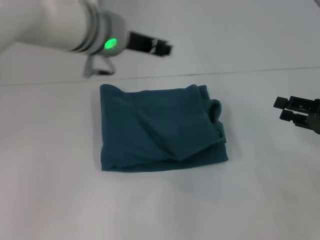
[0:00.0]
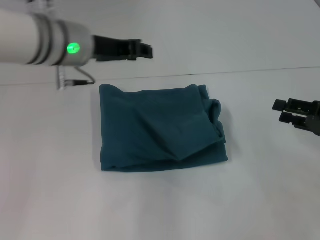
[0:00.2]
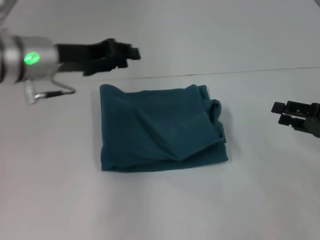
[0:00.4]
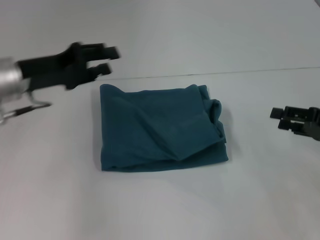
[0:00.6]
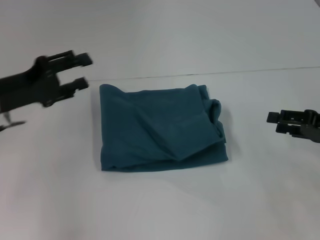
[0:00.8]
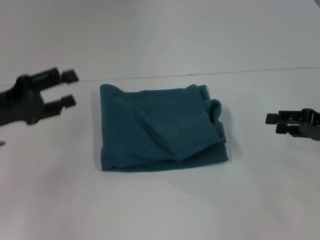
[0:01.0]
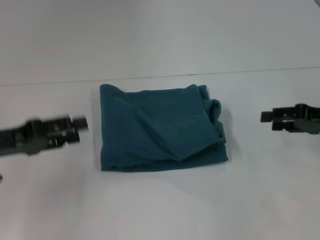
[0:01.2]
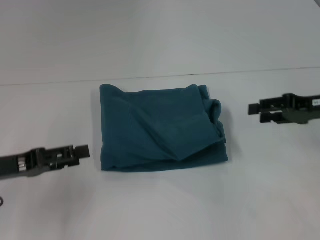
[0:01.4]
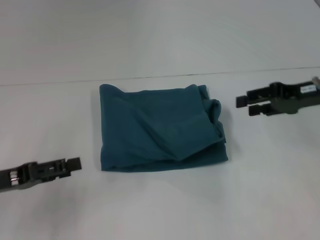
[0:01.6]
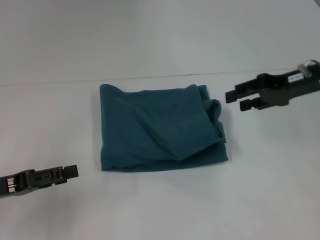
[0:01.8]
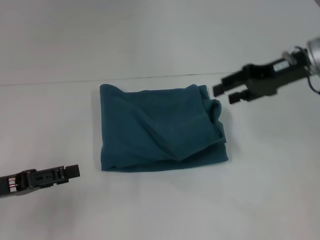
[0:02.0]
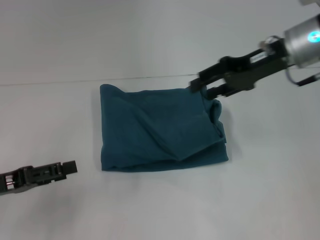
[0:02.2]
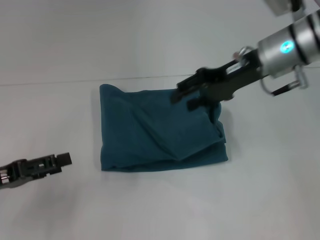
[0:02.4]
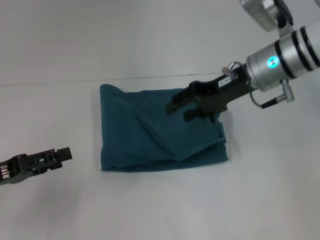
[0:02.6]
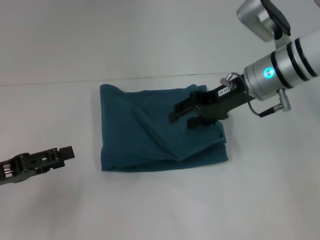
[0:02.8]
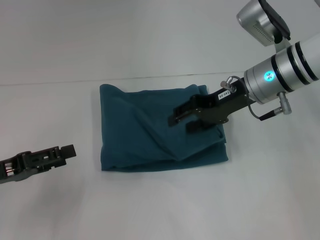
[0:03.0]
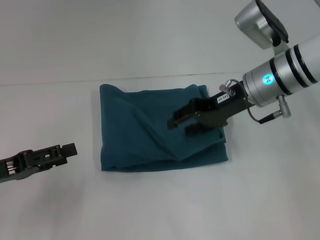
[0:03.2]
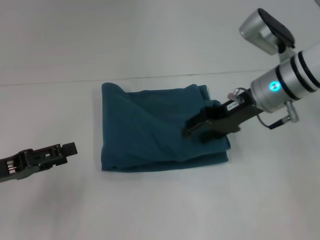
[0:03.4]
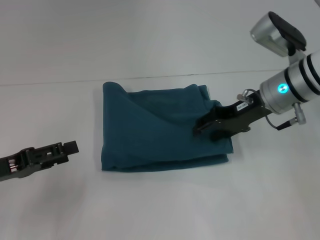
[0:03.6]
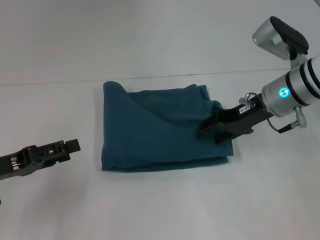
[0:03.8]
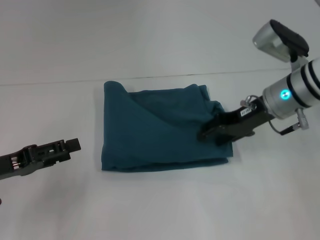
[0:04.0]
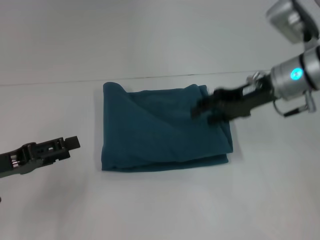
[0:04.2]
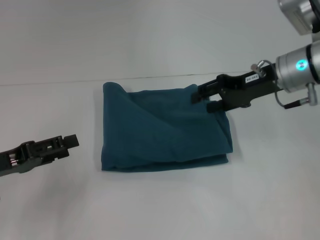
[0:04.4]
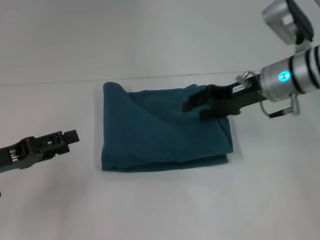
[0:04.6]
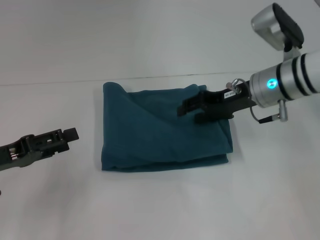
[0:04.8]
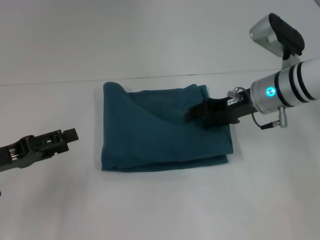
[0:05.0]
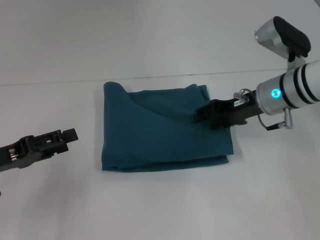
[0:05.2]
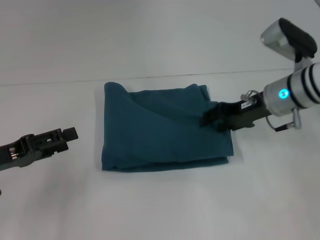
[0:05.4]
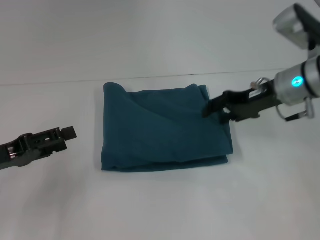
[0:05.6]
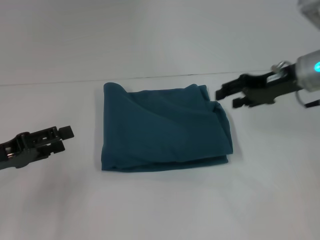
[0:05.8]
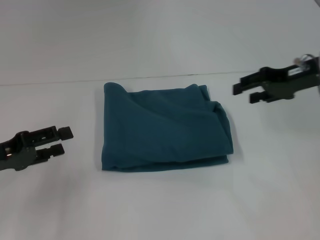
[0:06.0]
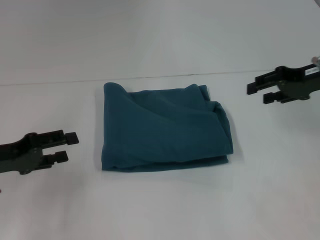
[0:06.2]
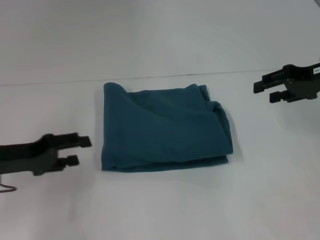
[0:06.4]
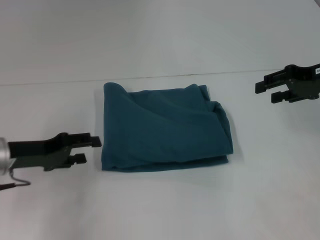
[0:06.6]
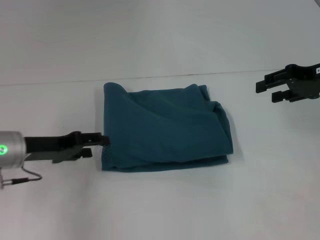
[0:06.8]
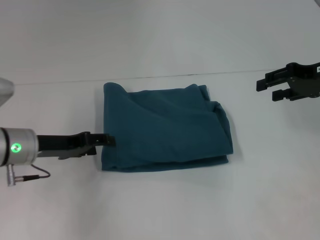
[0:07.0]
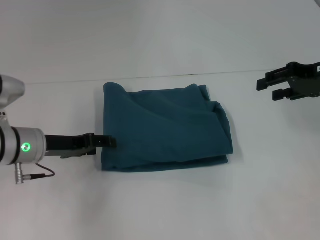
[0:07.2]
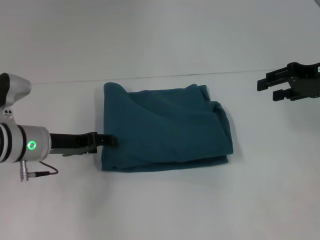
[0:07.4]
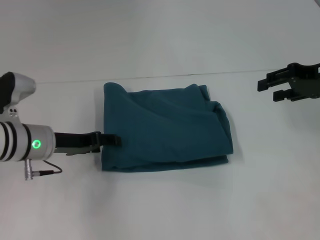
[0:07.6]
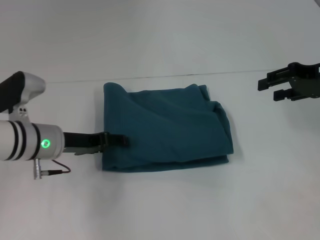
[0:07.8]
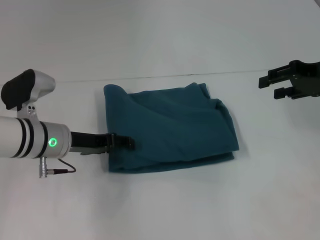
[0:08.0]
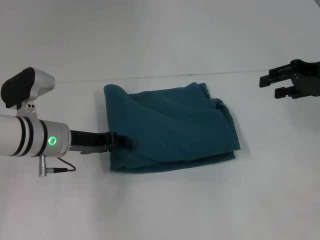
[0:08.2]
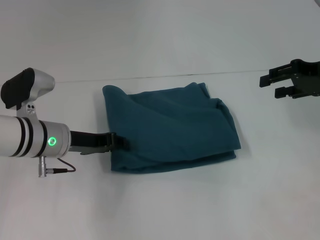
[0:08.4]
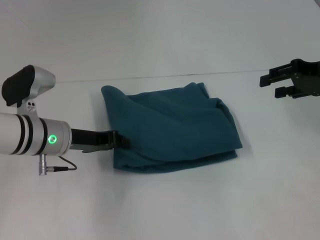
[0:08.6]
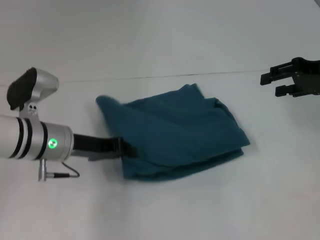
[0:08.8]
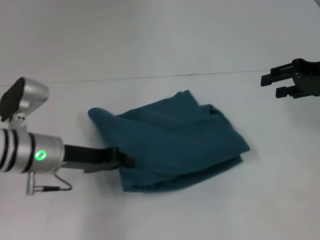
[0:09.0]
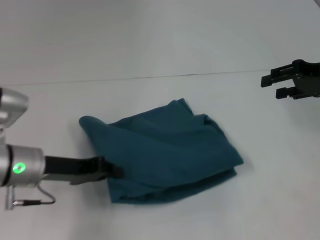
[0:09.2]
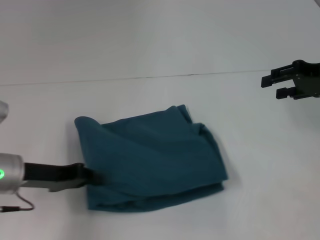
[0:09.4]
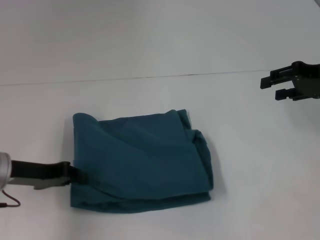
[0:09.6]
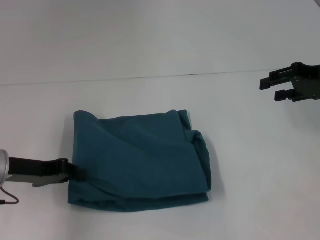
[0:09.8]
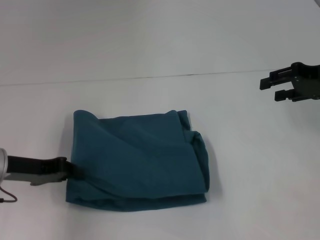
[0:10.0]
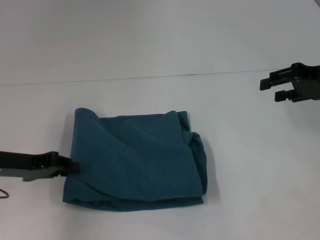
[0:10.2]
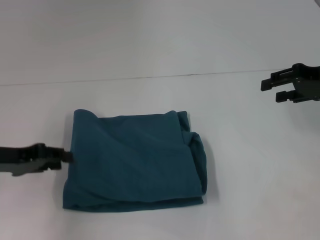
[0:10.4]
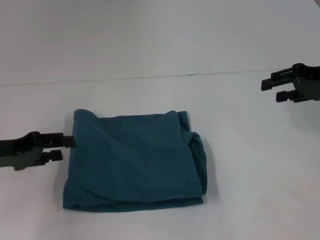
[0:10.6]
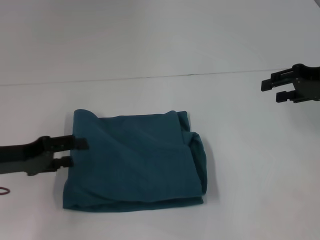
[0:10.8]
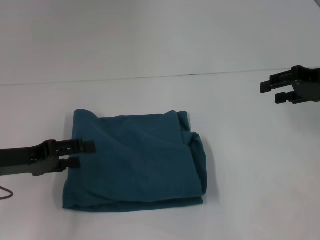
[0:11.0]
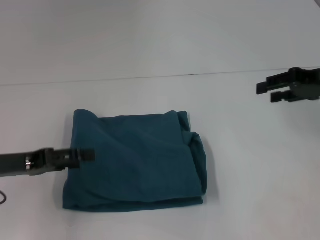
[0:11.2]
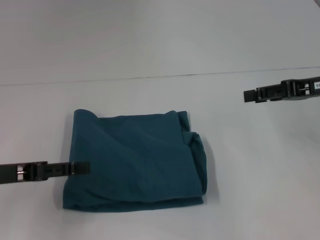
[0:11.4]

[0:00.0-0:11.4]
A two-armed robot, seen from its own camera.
0:00.0 to 0:01.4: The right gripper heads forward, covering some 5 cm; the left gripper moves to the left, downward and backward, approximately 30 cm.
0:01.4 to 0:02.8: The right gripper travels to the left by about 15 cm.
0:02.8 to 0:05.6: There are only small adjustments of the grippers.
0:05.6 to 0:07.2: The right gripper is displaced to the right by roughly 10 cm; the left gripper goes roughly 10 cm to the right and forward.
0:07.2 to 0:08.6: The left gripper closes.
0:08.6 to 0:10.0: The left gripper travels to the left by approximately 10 cm.
0:10.0 to 0:11.4: The left gripper moves about 5 cm, and opens its fingers.

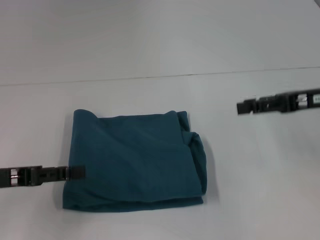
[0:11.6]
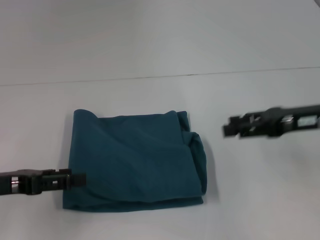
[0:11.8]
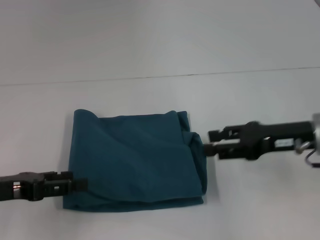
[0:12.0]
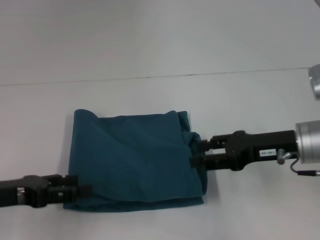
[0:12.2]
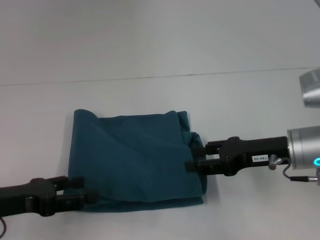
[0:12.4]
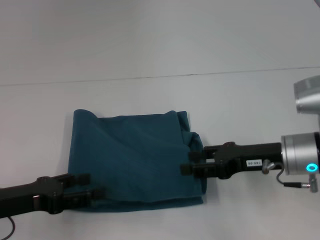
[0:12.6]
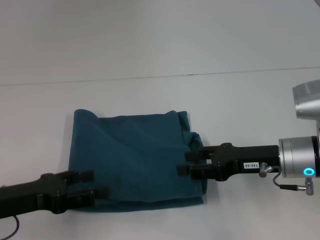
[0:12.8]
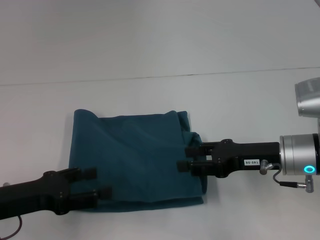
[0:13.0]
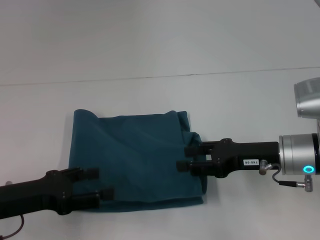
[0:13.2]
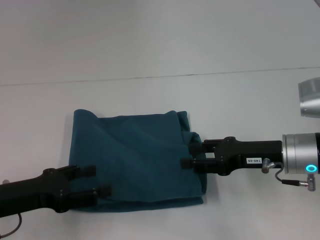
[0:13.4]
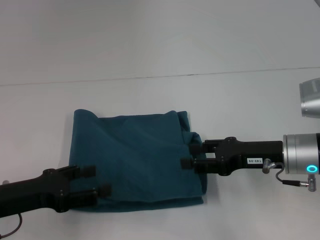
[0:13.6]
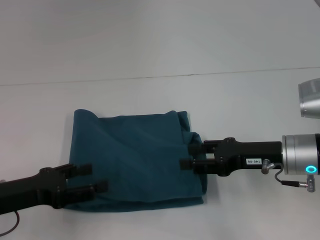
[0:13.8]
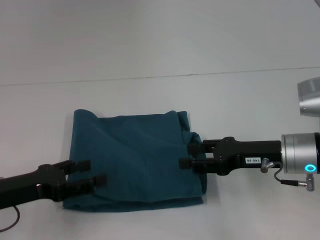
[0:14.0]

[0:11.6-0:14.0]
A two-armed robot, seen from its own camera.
0:11.6 to 0:12.8: The left gripper changes place by roughly 5 cm; the right gripper heads downward and to the left, covering approximately 10 cm.
0:12.8 to 0:14.0: The grippers make only small movements.

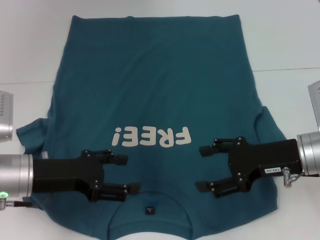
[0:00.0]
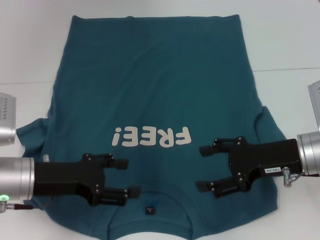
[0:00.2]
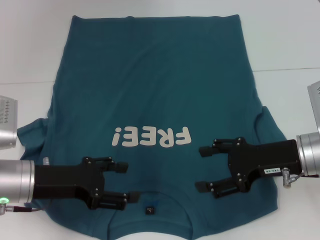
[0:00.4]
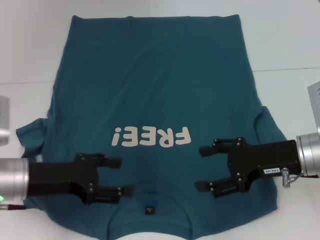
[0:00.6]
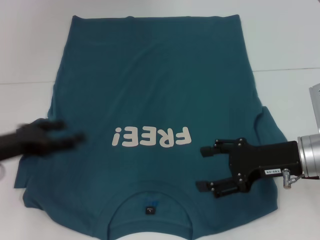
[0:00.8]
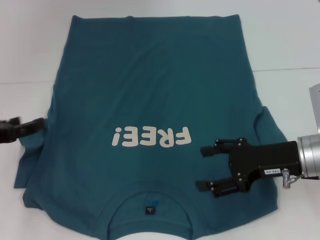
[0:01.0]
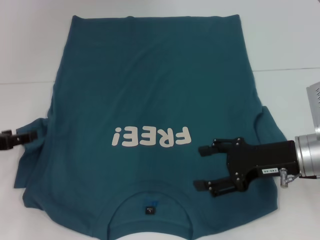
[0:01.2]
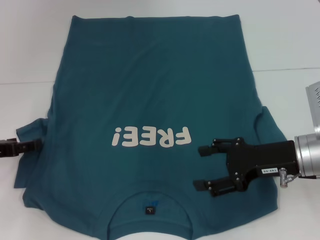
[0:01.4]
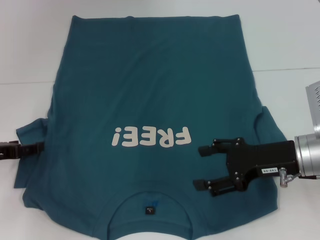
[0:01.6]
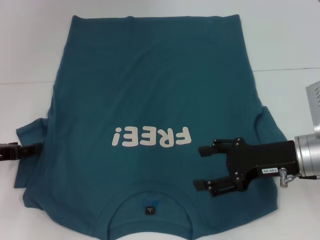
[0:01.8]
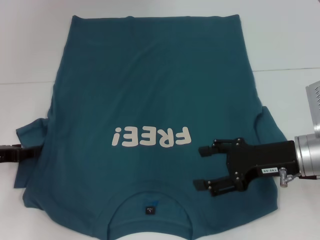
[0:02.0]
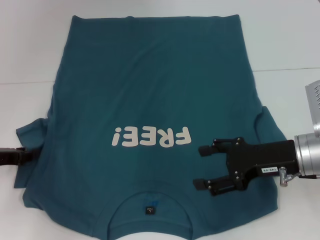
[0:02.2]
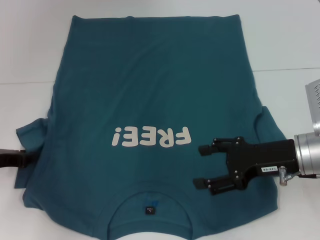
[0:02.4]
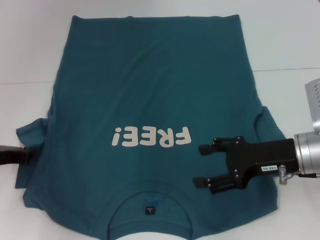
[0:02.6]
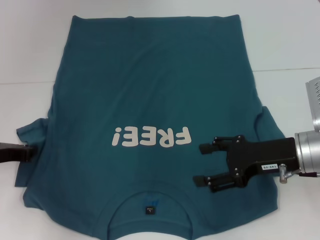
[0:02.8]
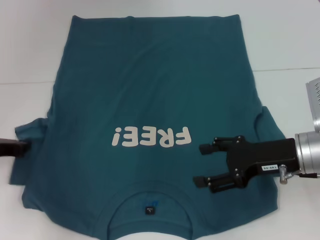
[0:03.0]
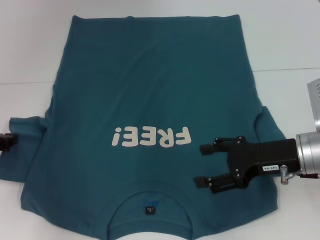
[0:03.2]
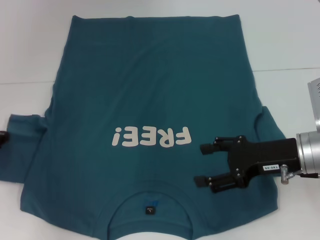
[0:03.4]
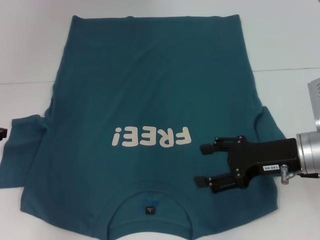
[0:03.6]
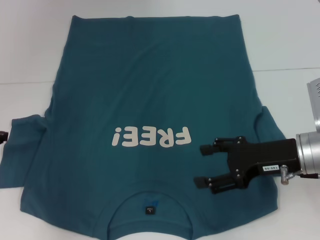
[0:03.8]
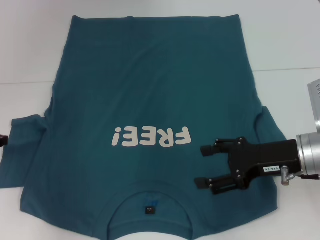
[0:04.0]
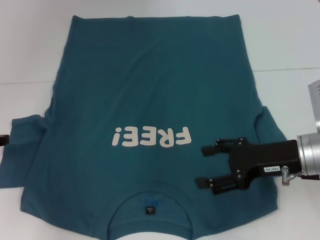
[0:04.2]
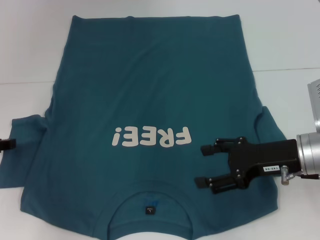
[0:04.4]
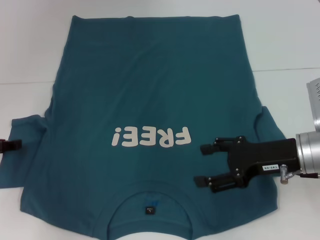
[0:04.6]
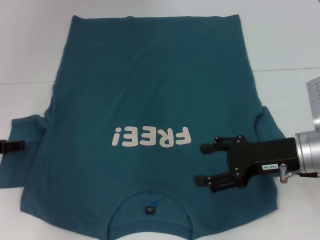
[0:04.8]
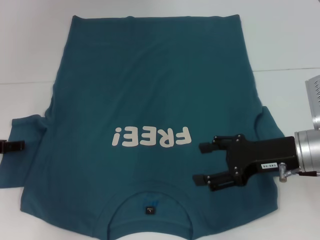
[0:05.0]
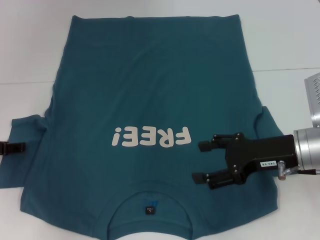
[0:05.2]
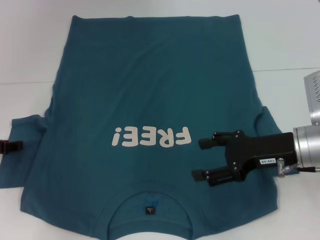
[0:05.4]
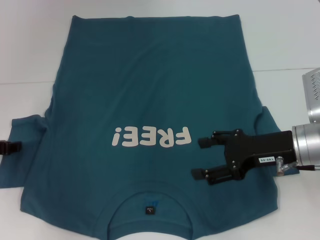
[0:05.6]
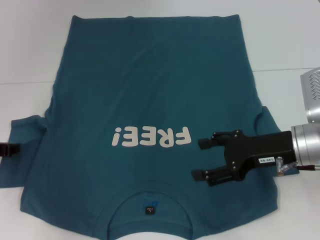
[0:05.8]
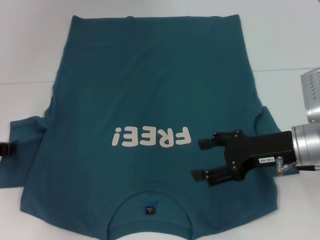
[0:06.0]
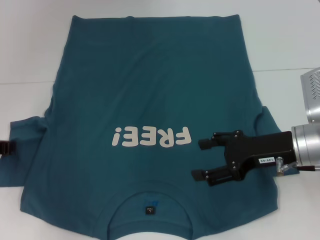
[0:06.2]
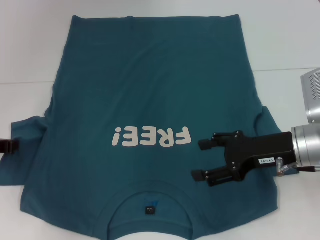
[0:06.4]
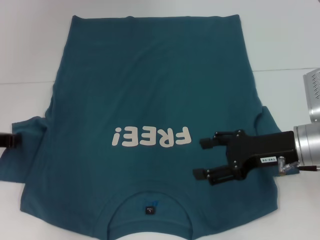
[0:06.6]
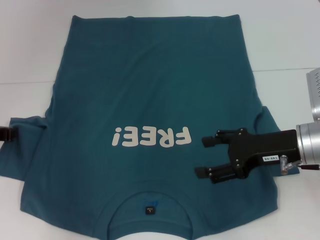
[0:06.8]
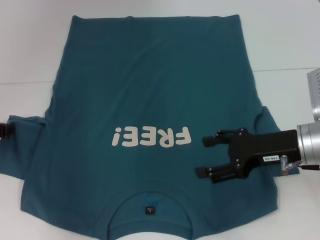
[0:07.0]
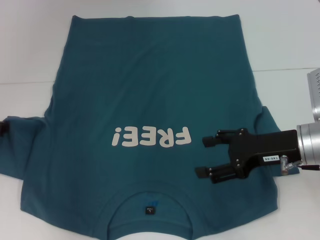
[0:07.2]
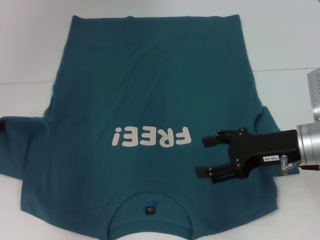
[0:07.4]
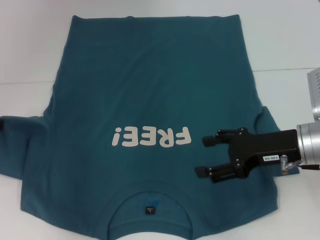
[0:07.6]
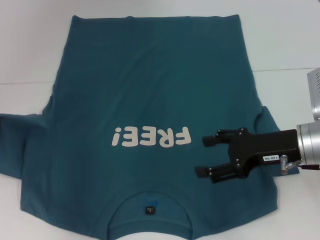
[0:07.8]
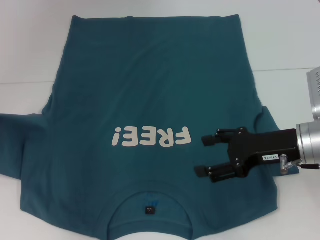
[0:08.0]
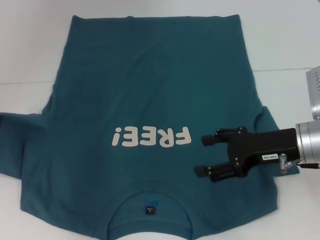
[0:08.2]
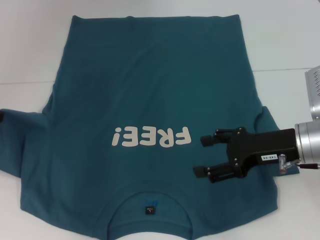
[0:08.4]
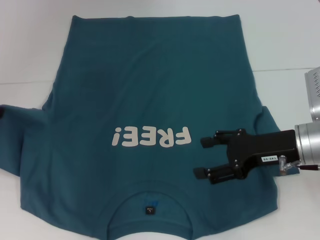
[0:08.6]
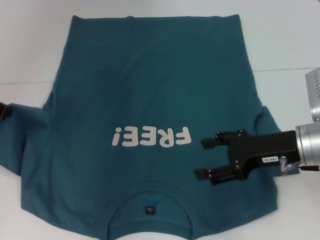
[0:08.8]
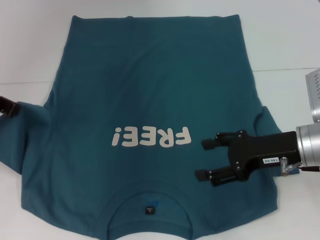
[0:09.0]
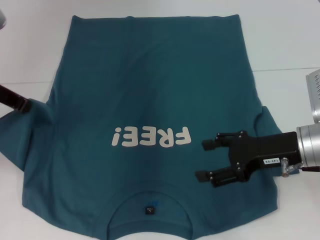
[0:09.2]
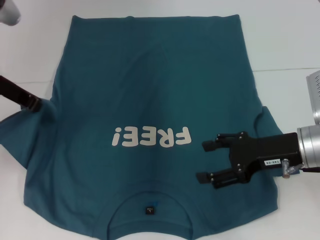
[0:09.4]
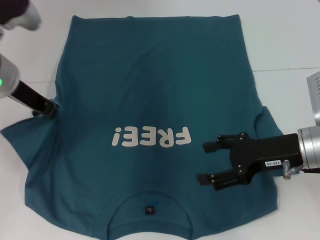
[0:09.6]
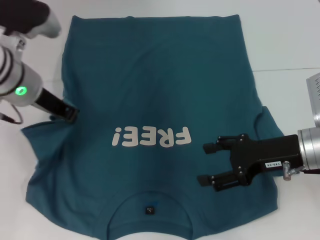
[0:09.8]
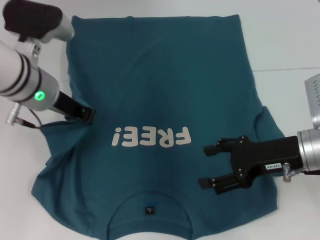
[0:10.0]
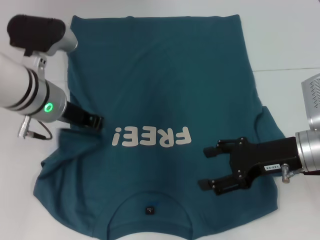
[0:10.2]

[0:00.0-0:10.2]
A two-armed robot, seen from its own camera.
0:00.0 to 0:01.4: The left gripper moves to the left, roughly 10 cm.
0:01.4 to 0:03.0: The left gripper closes.
0:03.0 to 0:04.4: The grippers make only small movements.
0:04.4 to 0:05.8: The left gripper opens.
0:05.8 to 0:07.2: The left gripper closes up.
0:07.2 to 0:08.8: The left gripper shifts some 5 cm upward.
0:08.8 to 0:10.2: The left gripper goes roughly 15 cm to the right.
